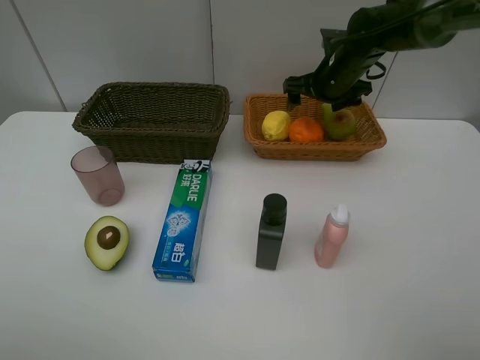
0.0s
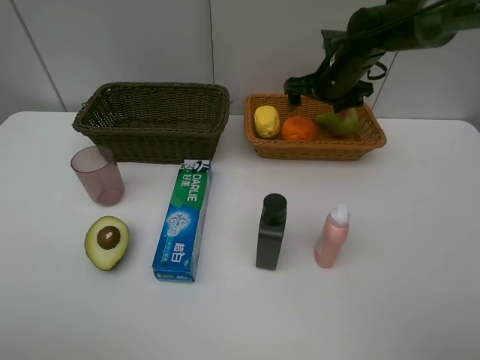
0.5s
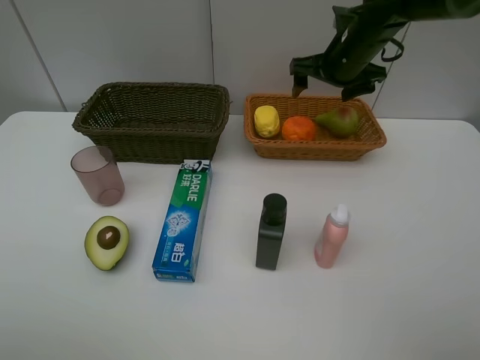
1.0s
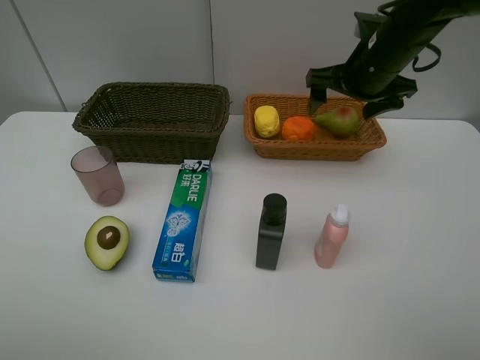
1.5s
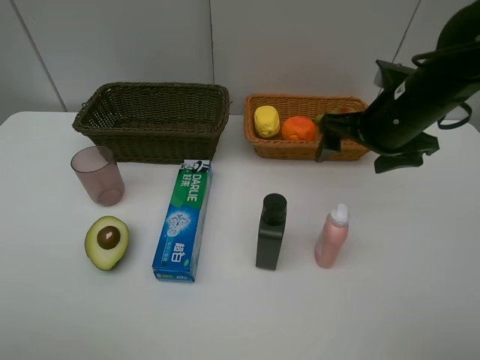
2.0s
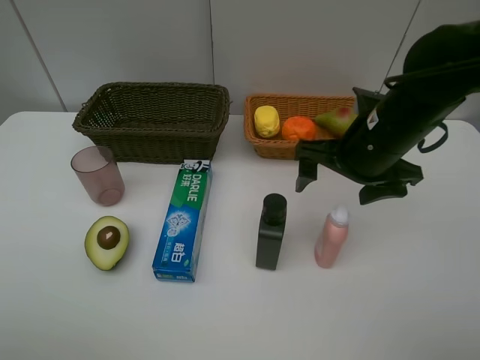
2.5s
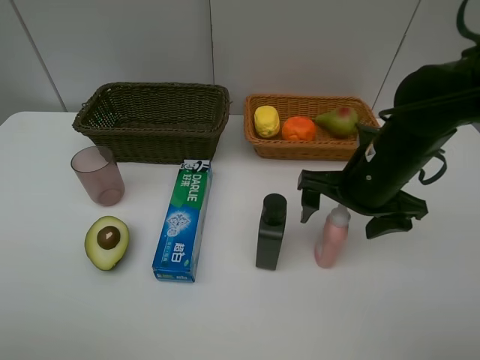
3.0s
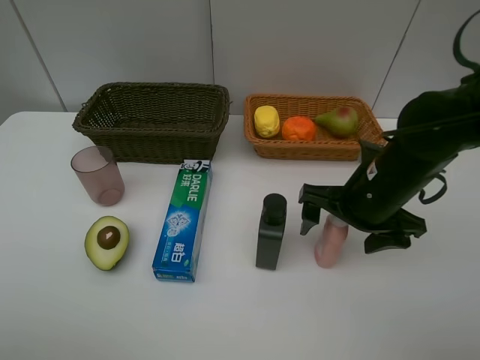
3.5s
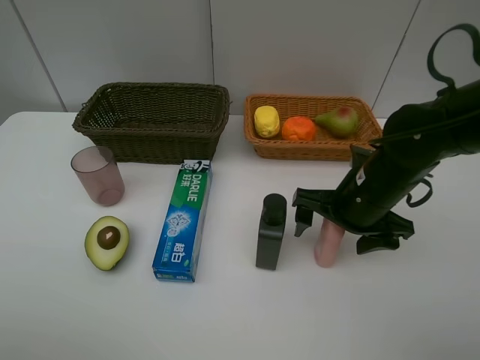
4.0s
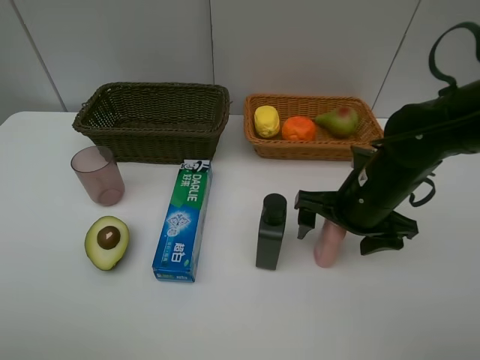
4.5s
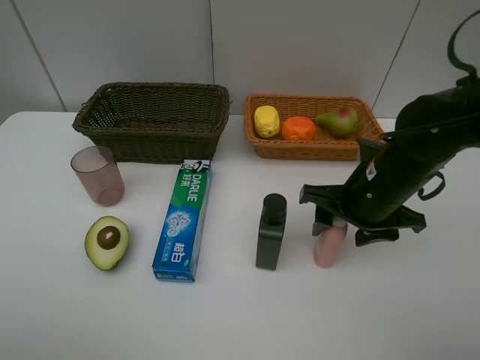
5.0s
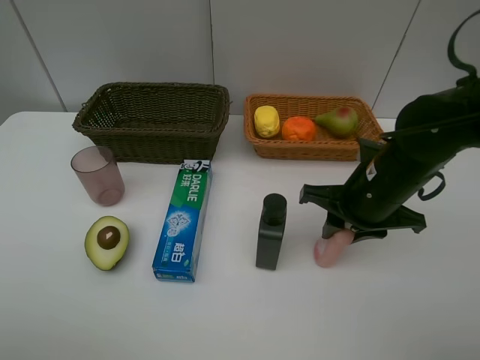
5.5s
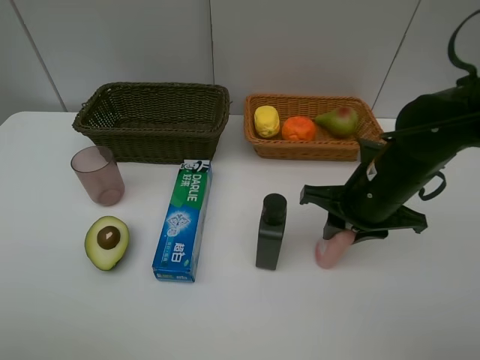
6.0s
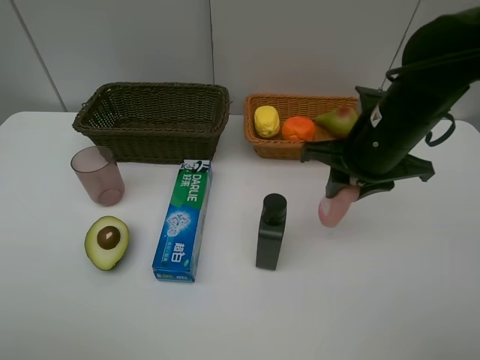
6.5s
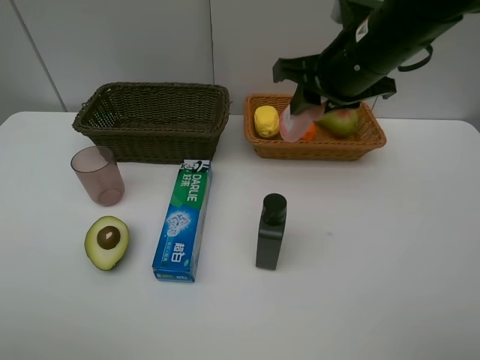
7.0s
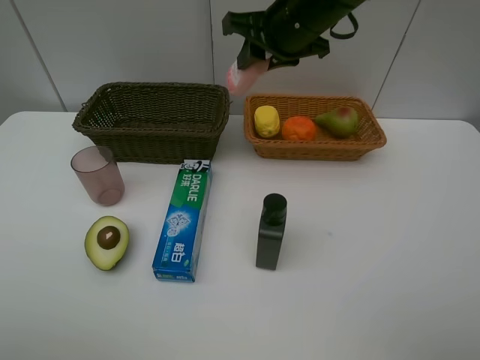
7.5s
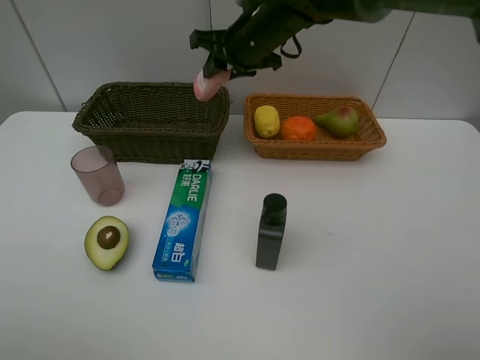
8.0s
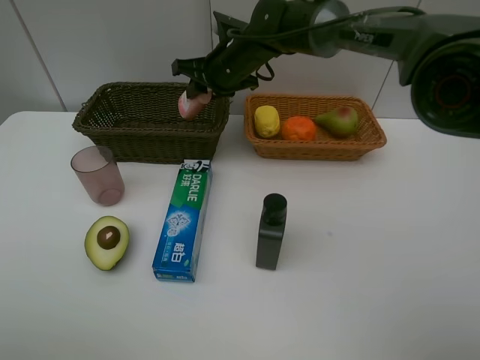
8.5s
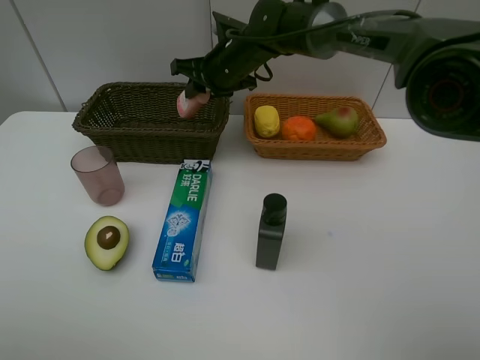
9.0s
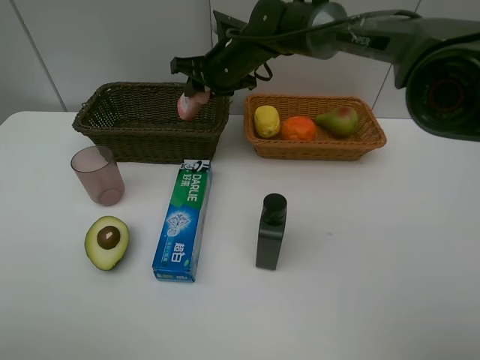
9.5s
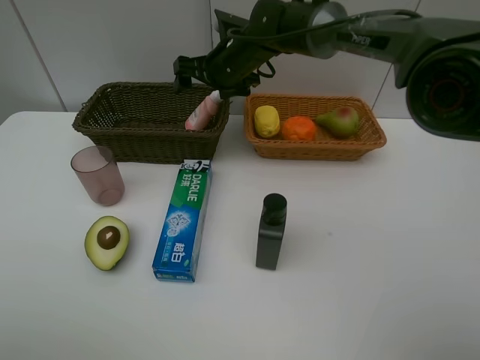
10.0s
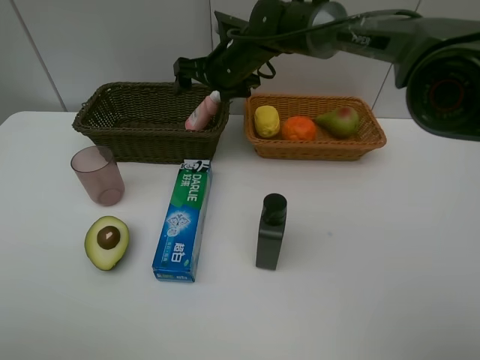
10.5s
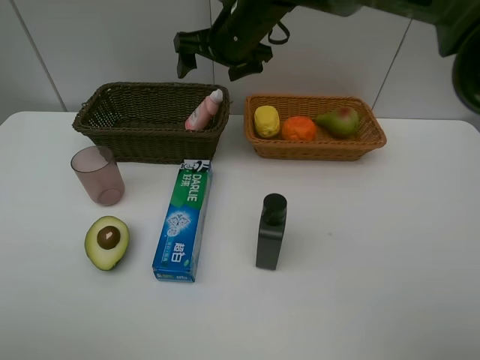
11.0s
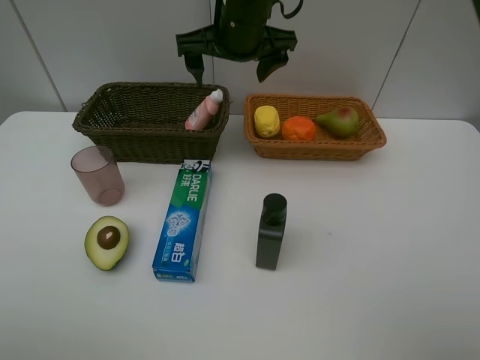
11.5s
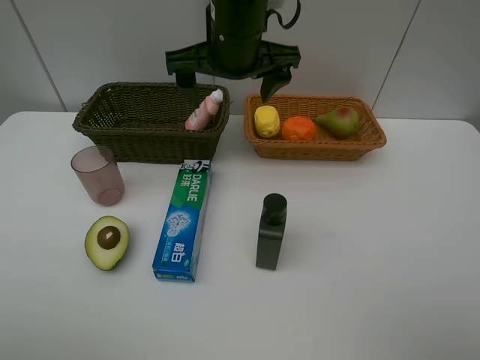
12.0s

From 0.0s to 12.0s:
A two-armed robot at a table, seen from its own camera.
Task of the whole recording: Place multiple objects separately in different baskets.
Step, from 0.5s to 6.0s: Pick up the laundry detergent with right gripper.
Step, from 6.5s to 10.5s: Place the laundry detergent in the dark basket with right gripper.
From 0.0s to 2.0s: The right gripper shifts about 15 cm backward.
From 2.0s to 4.0s: The right gripper moves downward and backward, approximately 10 cm.
From 4.0s to 6.0s: The right gripper closes.
From 6.0s to 8.0s: The right gripper travels forward, to the left and upward by roughly 25 cm.
From 8.0s to 10.0s: The right gripper moves approximately 5 cm, and opens.
From 10.0s to 12.0s: The right gripper is displaced backward and upward by approximately 15 cm.

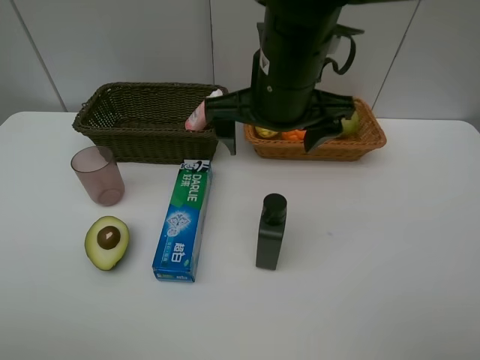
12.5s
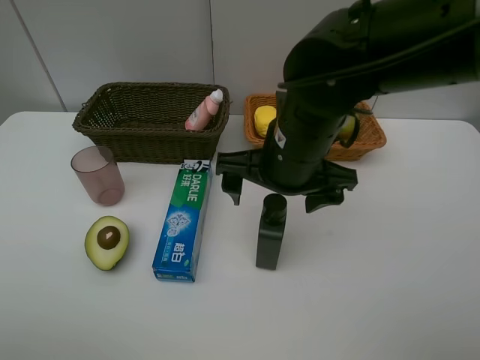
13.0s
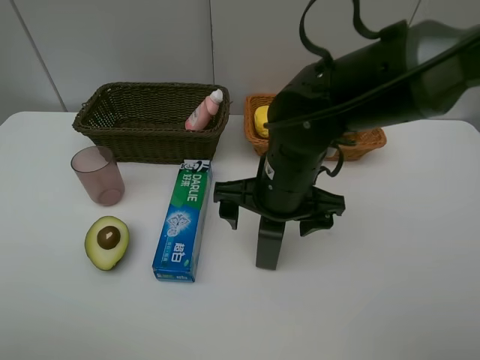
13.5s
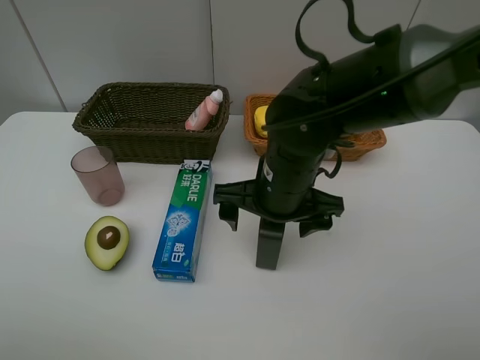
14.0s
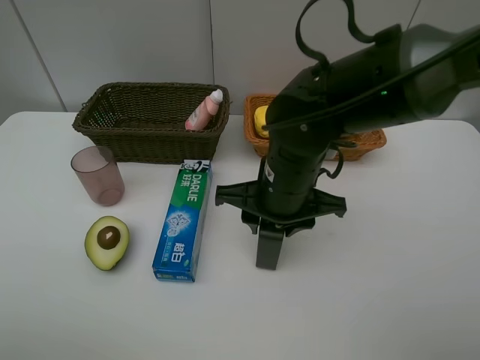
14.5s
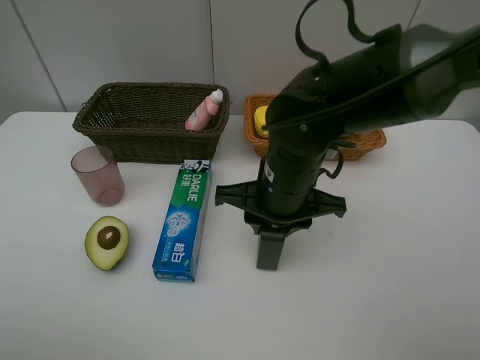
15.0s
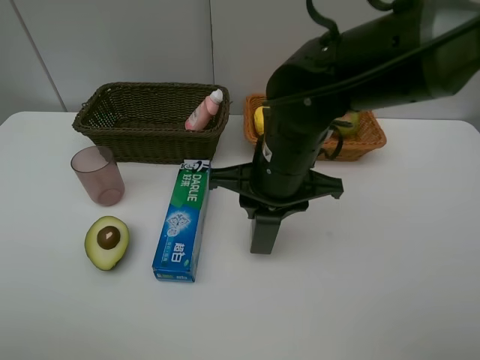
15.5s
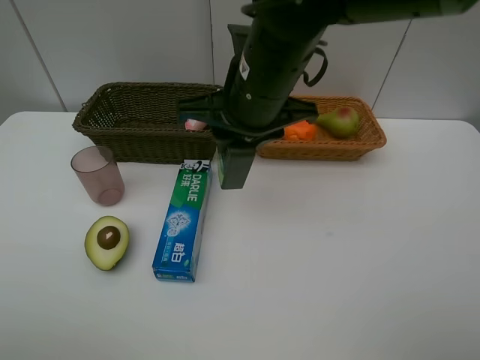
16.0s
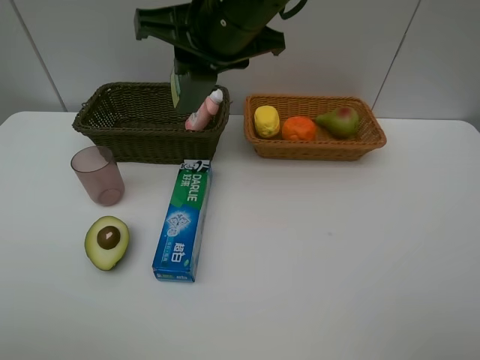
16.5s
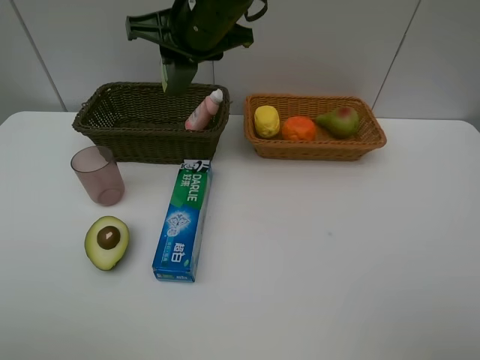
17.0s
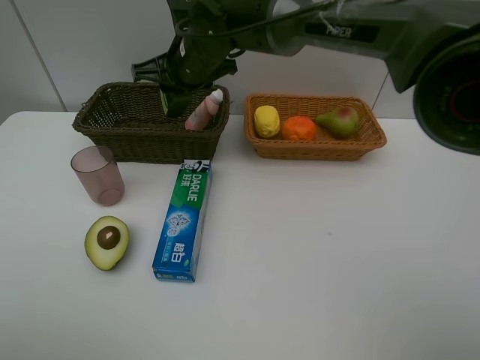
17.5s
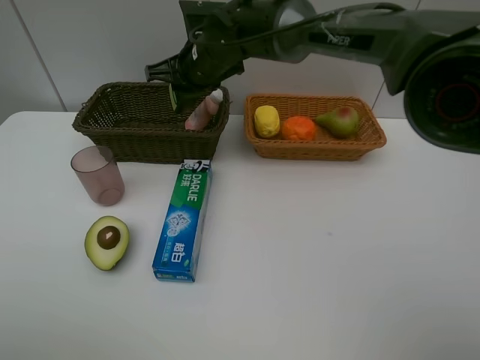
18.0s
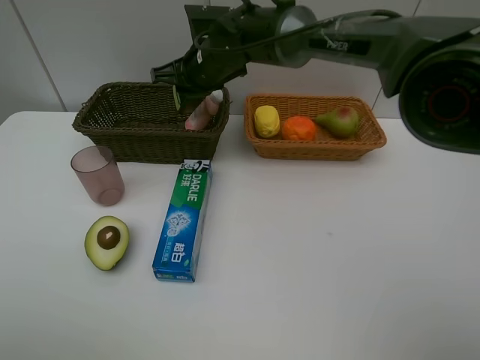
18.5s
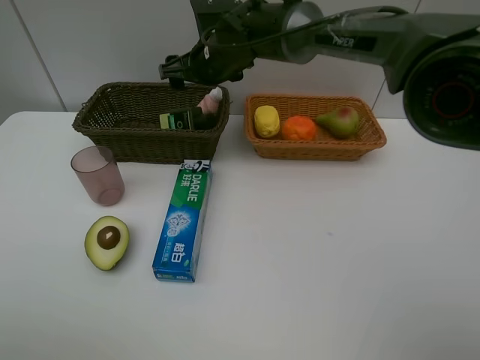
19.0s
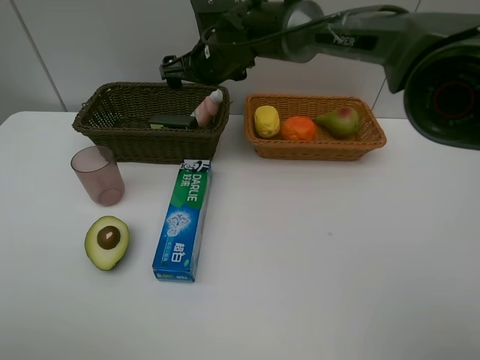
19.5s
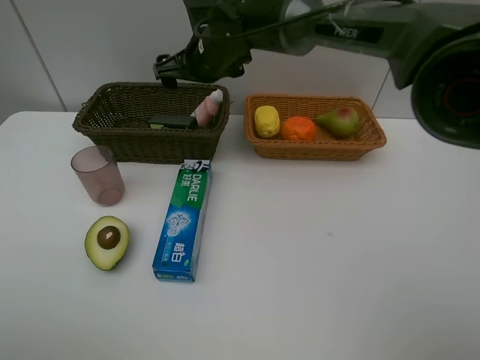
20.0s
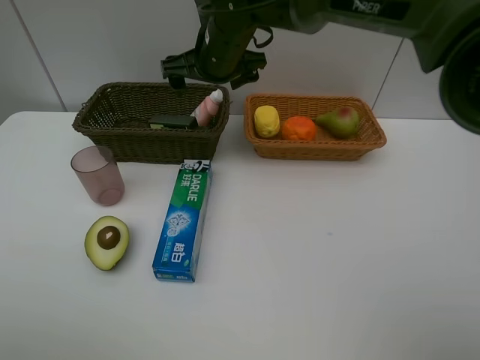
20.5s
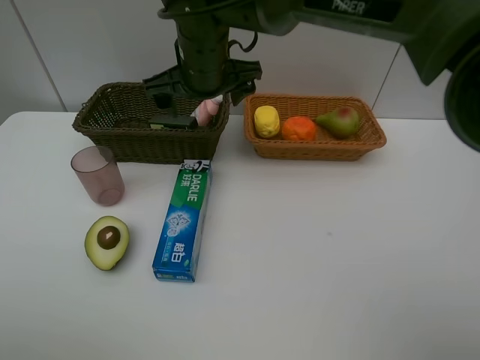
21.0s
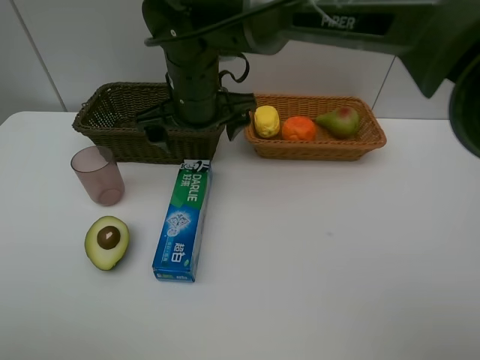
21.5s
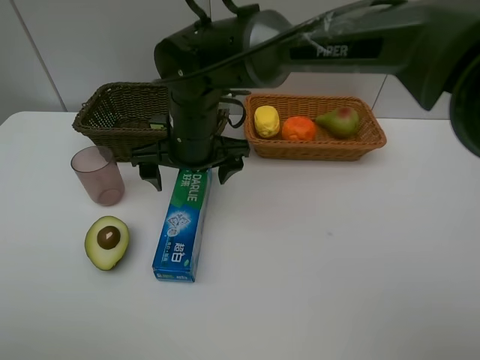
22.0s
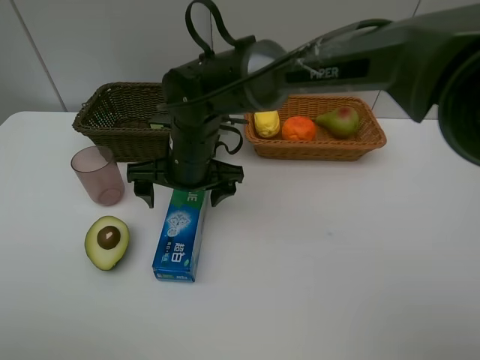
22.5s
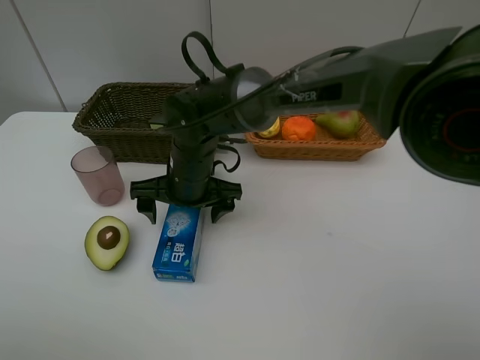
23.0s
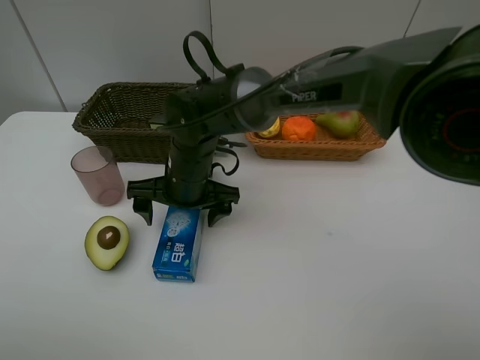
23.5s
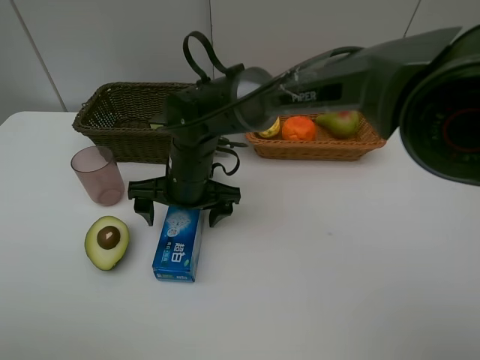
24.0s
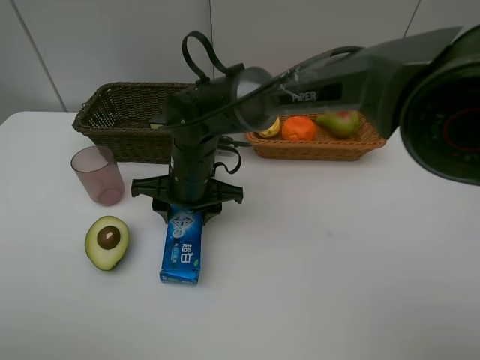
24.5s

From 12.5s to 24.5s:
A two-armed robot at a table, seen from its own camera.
Task of the whole recording: Place multiple objects separately in different baskets.
Step, from 12.5s to 15.0s: Pick up the hard facial cleanser with right gripper.
Step, from 15.5s to 19.0s: Place the hard facial cleanser in the dark basket with right gripper.
From 12.5s to 14.5s: The right gripper travels downward by about 10 cm, and closes up.
From 14.5s to 16.5s: The right gripper travels upward by roughly 15 cm.
From 16.5s to 18.5s: The right gripper heads forward and downward, covering roughly 20 cm.
From 18.5s to 20.5s: The right gripper opens.
From 20.5s to 22.5s: The right gripper moves backward and downward, roughly 15 cm.
From 22.5s to 24.5s: The right gripper closes up.

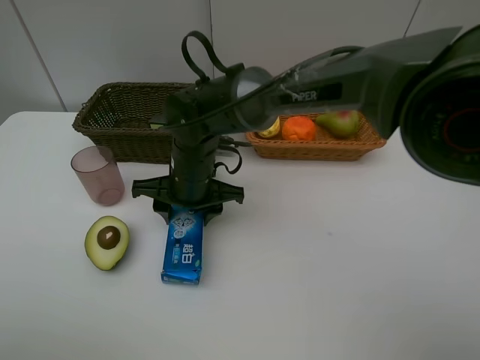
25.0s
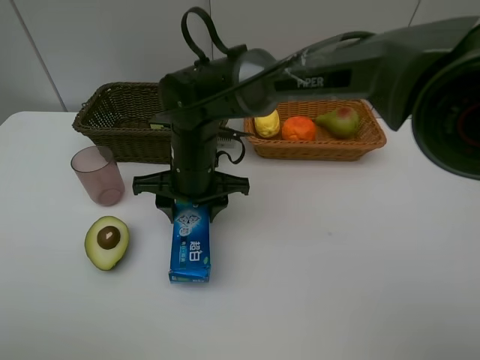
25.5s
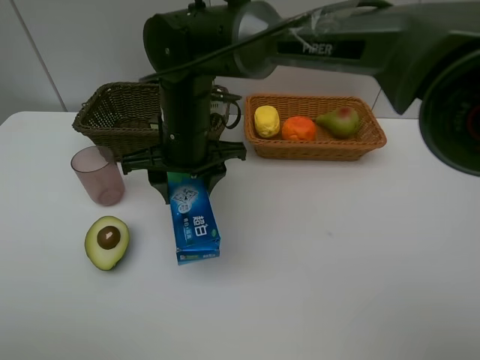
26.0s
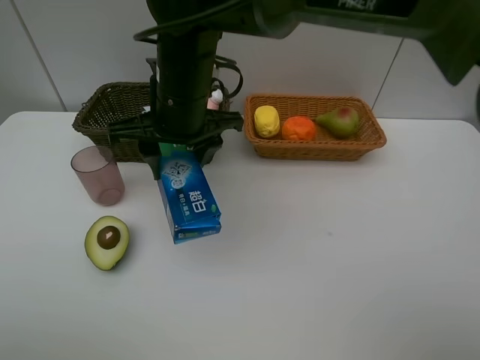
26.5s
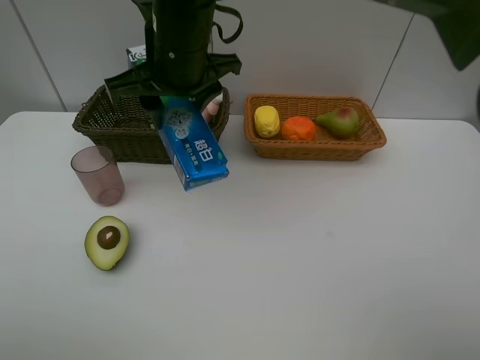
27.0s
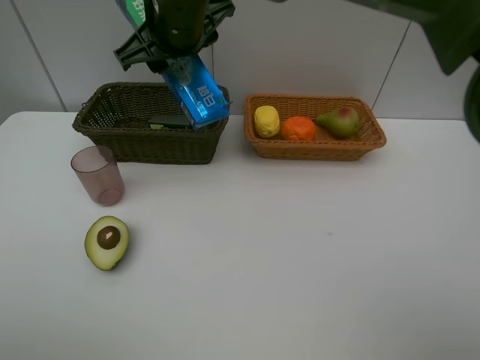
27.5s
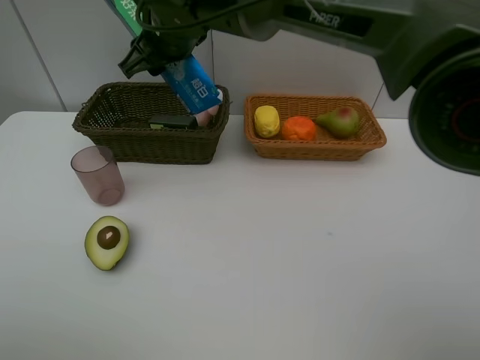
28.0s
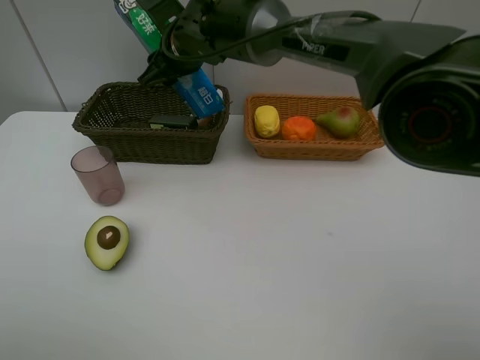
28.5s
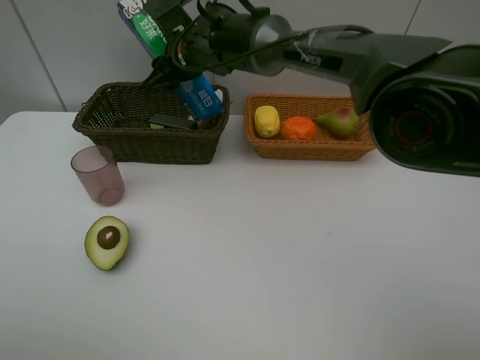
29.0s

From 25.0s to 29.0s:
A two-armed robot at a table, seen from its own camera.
Task of the whole recording: Place multiple objects separately in different baskets.
From 25.0s to 27.0s: The right gripper heads upward, covering approximately 15 cm.
From 27.0s to 29.0s: The right gripper goes about 15 cm forward and downward.
